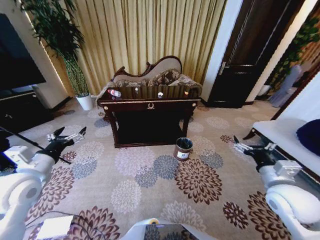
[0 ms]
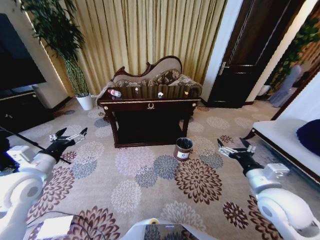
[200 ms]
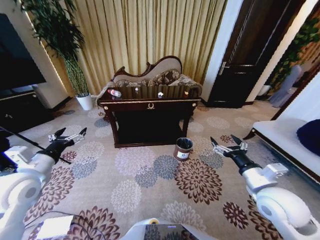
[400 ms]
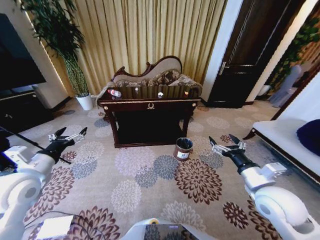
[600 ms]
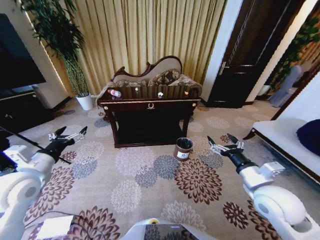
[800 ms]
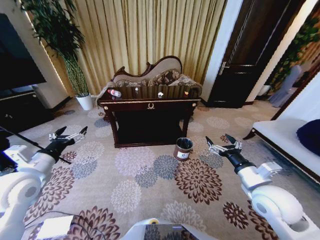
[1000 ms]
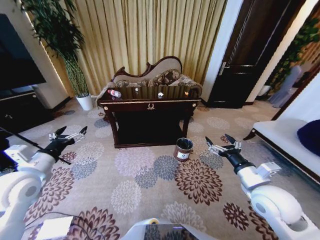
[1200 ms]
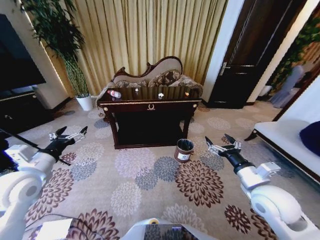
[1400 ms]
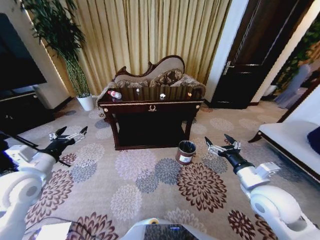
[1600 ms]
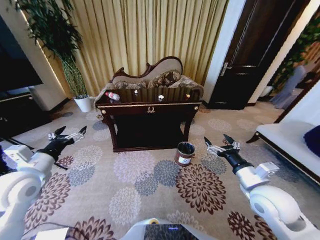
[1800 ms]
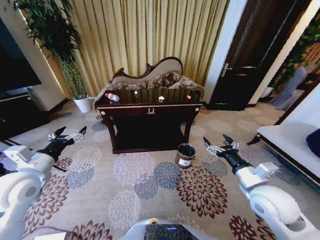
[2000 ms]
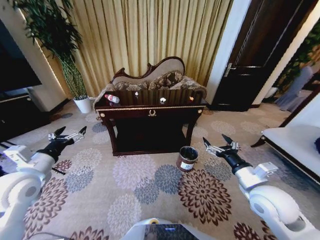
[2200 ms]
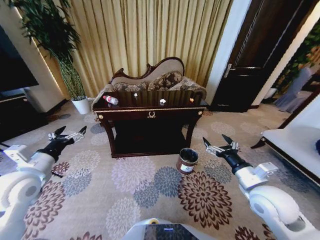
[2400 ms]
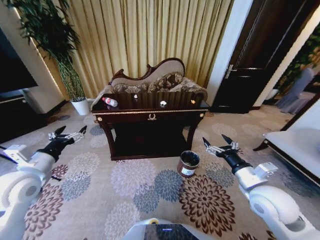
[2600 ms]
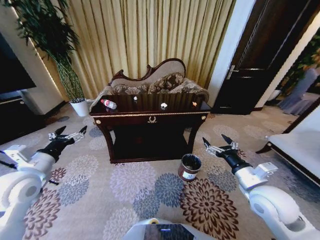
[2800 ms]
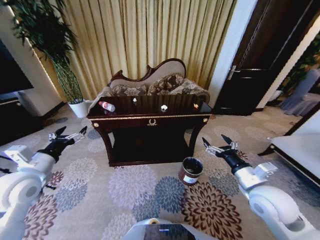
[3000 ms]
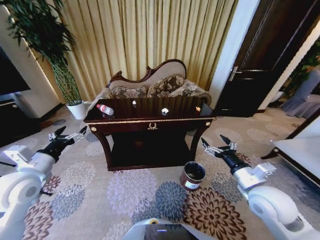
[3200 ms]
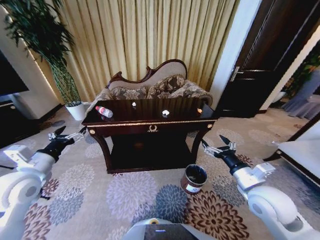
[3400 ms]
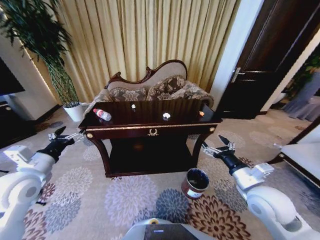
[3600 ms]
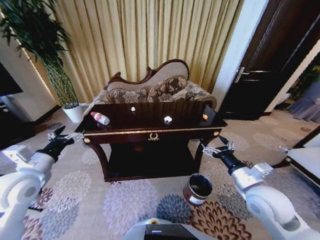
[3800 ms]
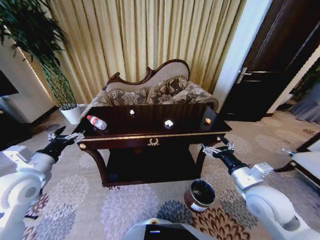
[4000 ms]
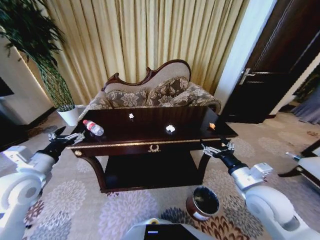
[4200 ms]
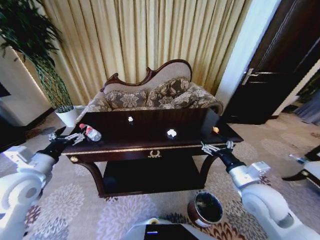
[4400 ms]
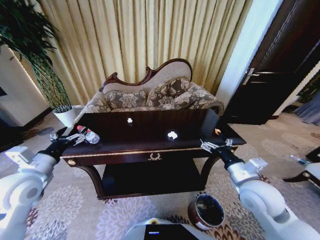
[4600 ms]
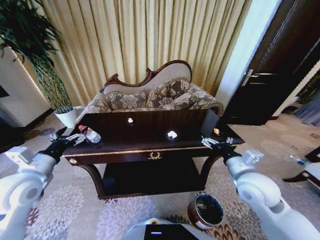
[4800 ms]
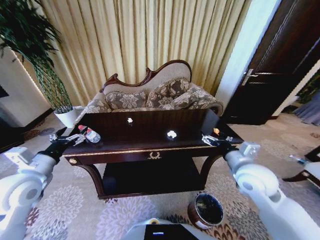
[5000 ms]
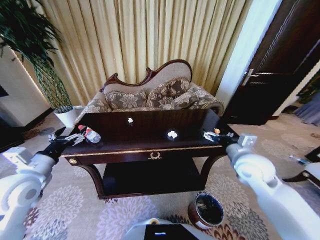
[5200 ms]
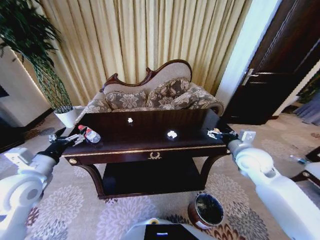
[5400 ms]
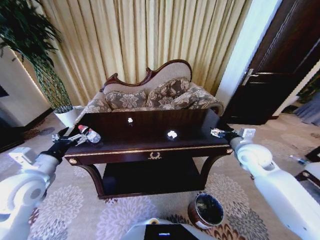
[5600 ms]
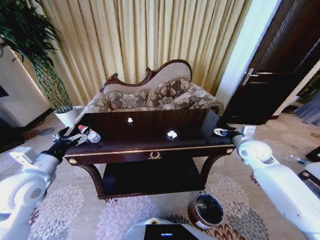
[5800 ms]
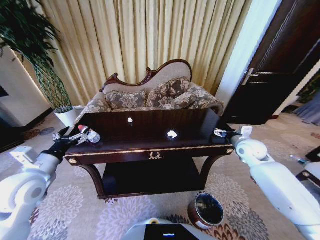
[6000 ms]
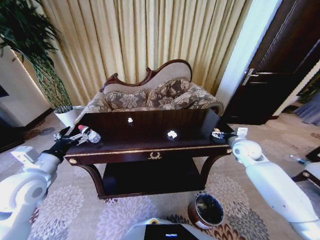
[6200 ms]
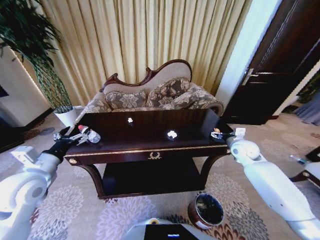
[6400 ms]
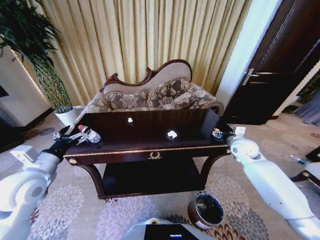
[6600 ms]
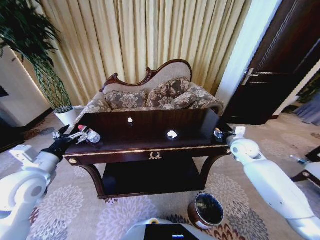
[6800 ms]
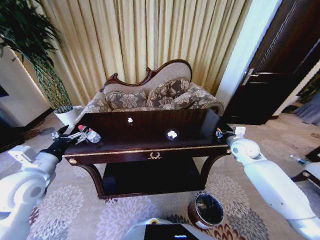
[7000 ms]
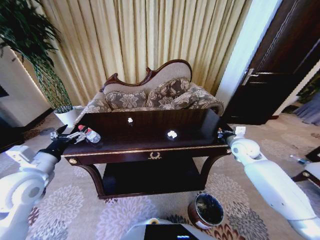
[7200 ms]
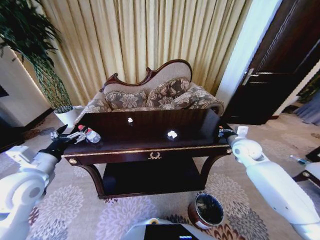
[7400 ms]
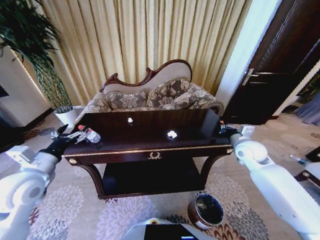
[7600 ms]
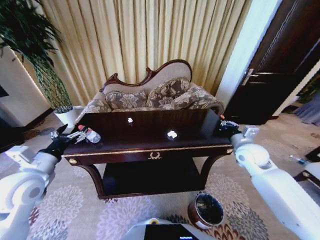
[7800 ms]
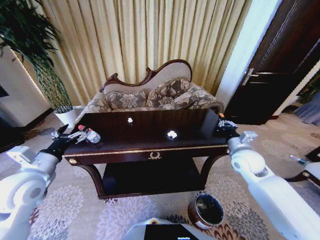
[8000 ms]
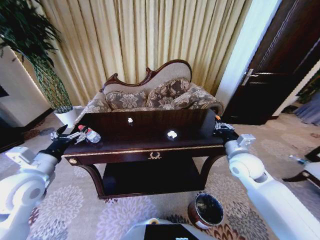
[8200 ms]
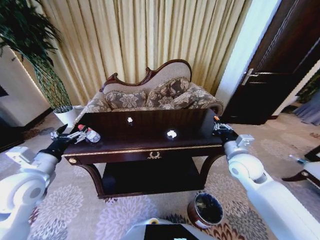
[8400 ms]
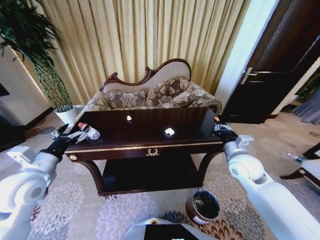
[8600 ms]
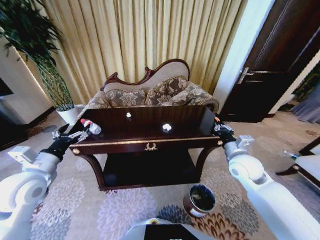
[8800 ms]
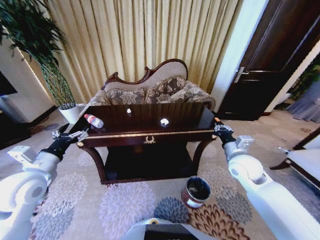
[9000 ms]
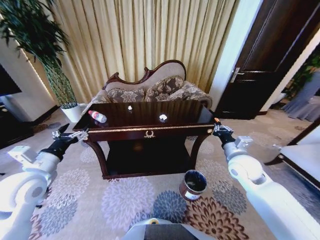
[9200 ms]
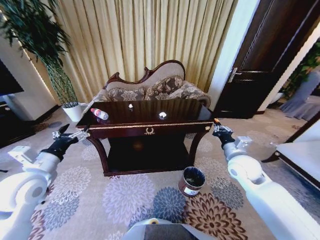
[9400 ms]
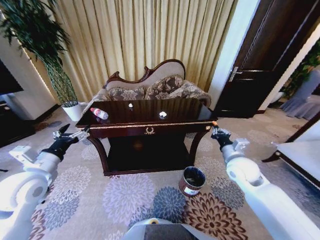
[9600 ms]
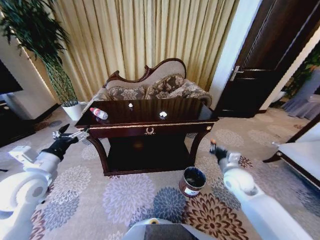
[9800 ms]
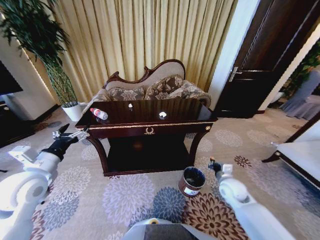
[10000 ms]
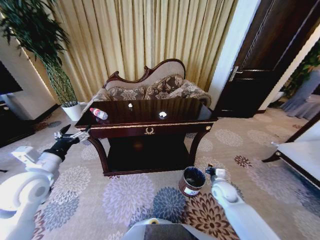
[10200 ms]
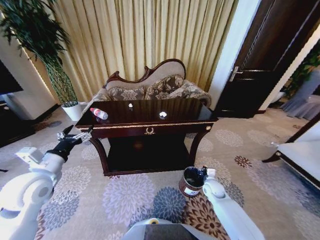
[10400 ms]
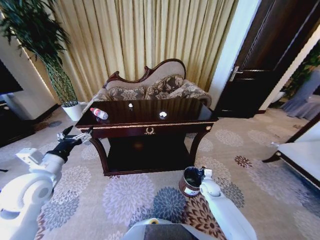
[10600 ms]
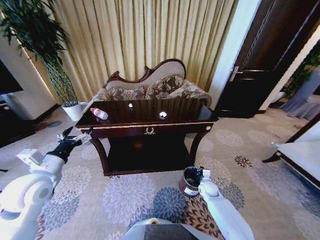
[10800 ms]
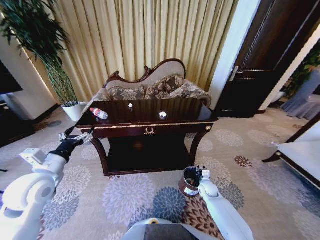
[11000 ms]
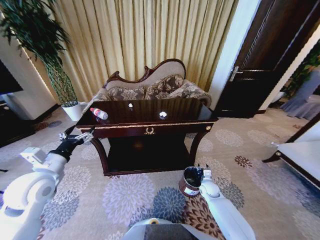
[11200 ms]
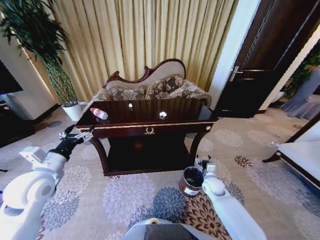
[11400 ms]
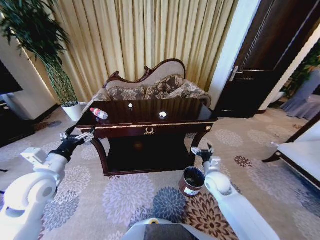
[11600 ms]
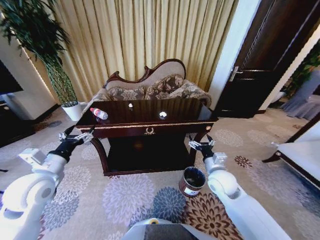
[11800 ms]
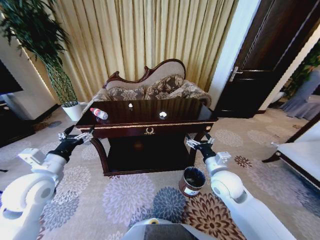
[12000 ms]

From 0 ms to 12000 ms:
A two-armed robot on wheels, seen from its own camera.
Task of the whole recording: Move to the front of the table and place the trash on the table into the trash bin.
From 4400 ms to 6000 ms: The right gripper is displaced forward and to the right by approximately 20 cm.
From 6000 ms to 7600 ms: The right gripper closes its fingers.
From 7600 ms to 9000 ms: The right gripper travels backward and to the left by roughly 10 cm.
From 9000 ms to 10400 ms: The right gripper is displaced downward by about 25 cm.
From 10400 ms to 12000 ms: The right gripper heads upward, covering approximately 20 cm, and opens.

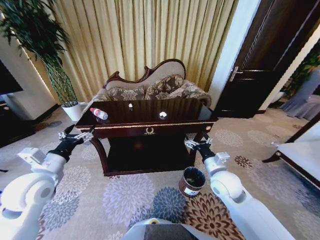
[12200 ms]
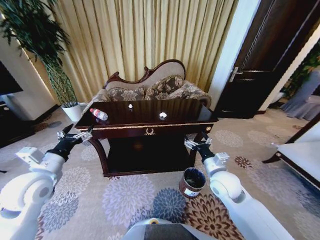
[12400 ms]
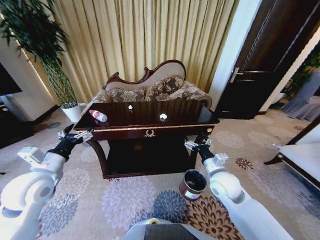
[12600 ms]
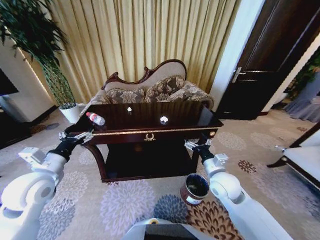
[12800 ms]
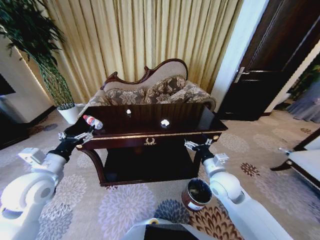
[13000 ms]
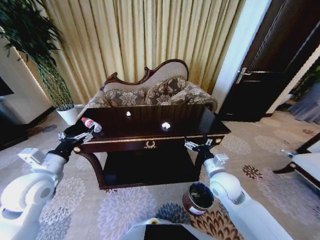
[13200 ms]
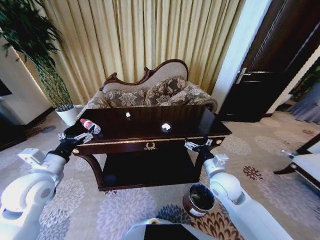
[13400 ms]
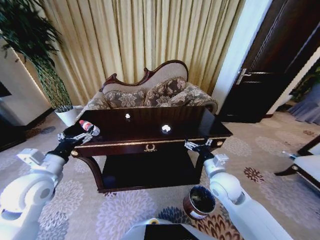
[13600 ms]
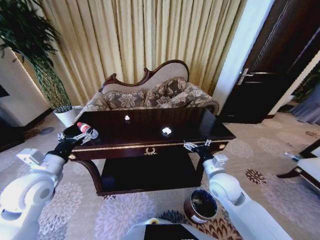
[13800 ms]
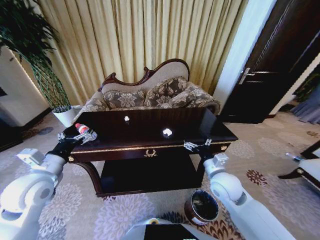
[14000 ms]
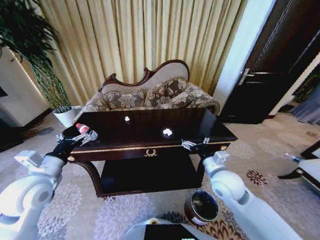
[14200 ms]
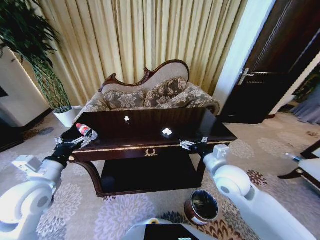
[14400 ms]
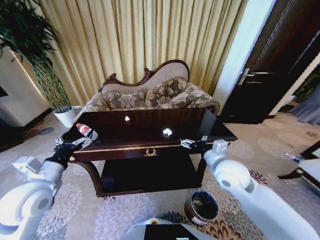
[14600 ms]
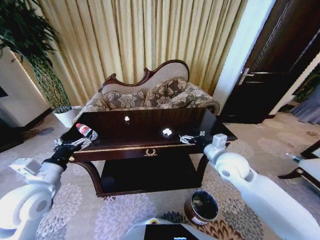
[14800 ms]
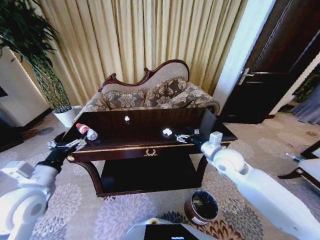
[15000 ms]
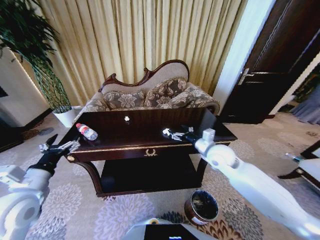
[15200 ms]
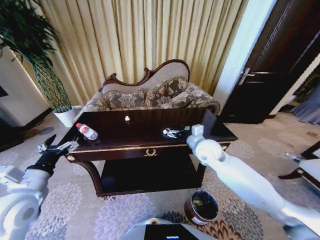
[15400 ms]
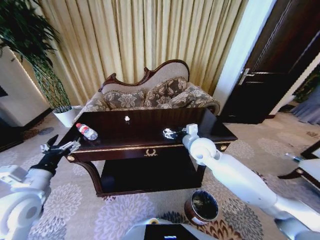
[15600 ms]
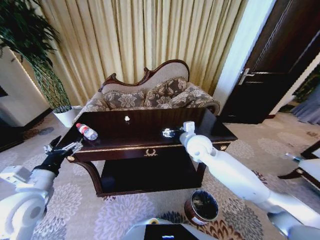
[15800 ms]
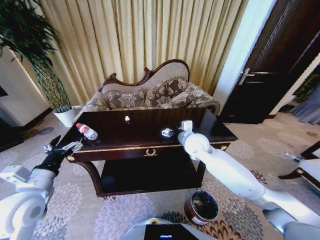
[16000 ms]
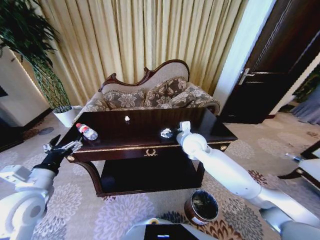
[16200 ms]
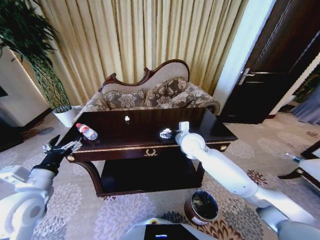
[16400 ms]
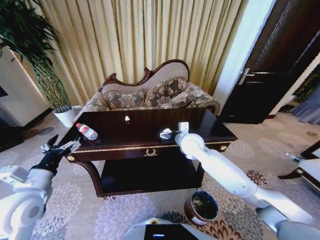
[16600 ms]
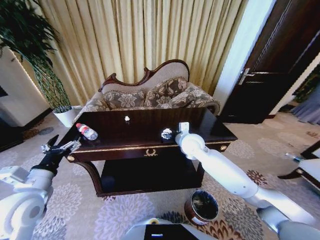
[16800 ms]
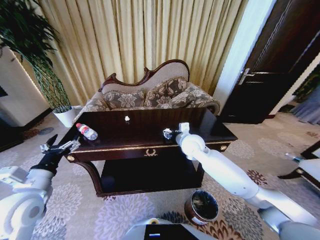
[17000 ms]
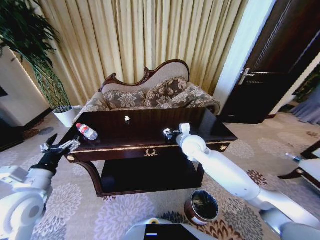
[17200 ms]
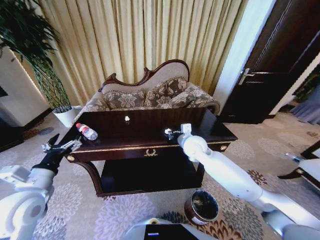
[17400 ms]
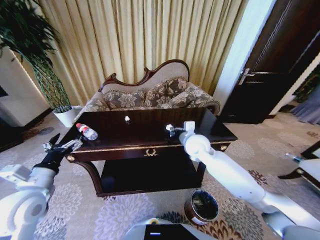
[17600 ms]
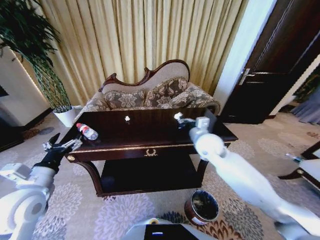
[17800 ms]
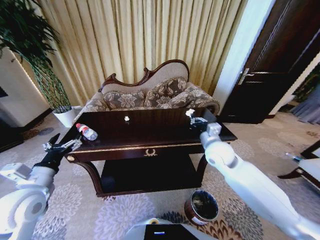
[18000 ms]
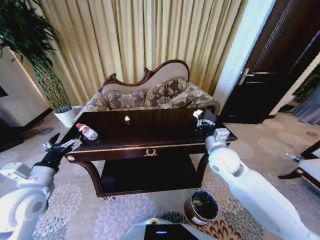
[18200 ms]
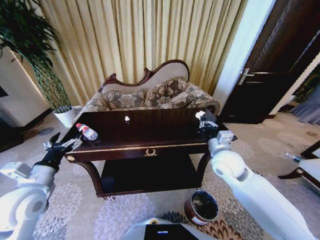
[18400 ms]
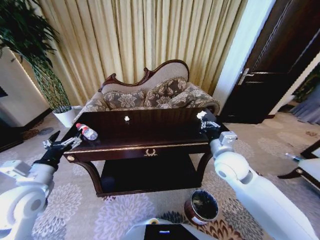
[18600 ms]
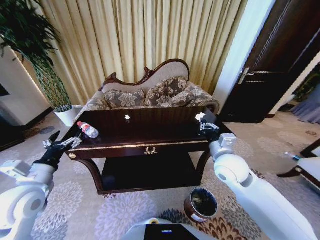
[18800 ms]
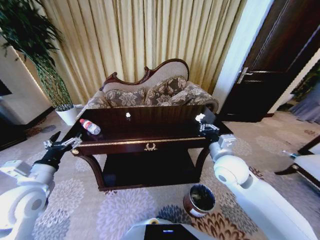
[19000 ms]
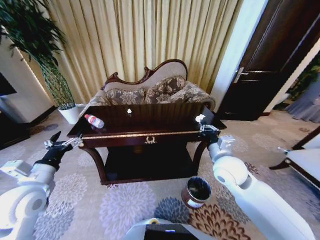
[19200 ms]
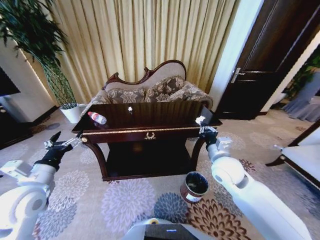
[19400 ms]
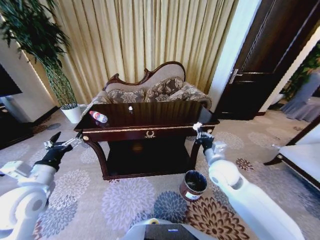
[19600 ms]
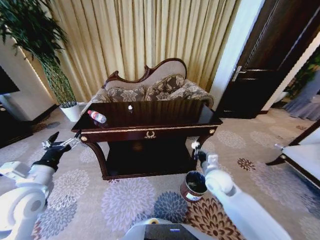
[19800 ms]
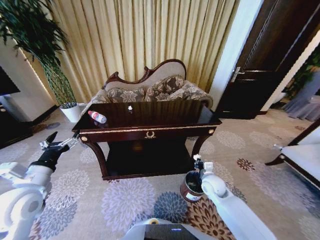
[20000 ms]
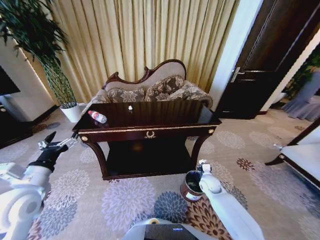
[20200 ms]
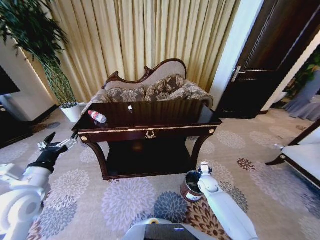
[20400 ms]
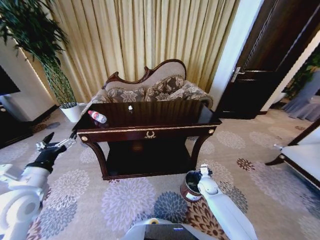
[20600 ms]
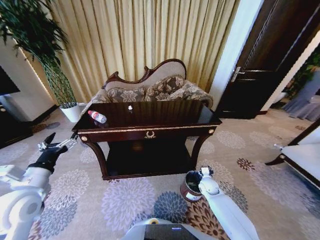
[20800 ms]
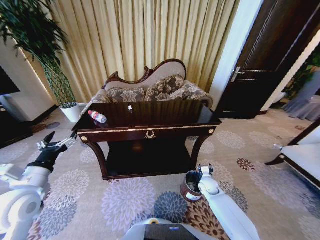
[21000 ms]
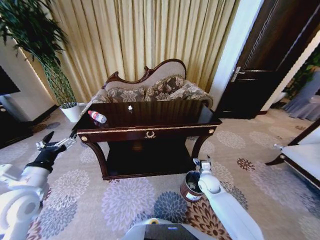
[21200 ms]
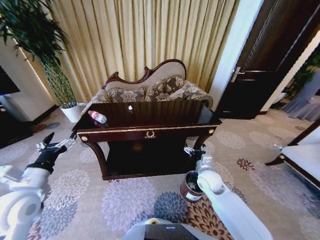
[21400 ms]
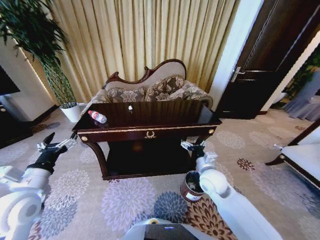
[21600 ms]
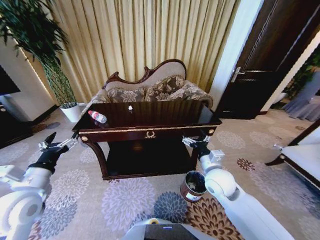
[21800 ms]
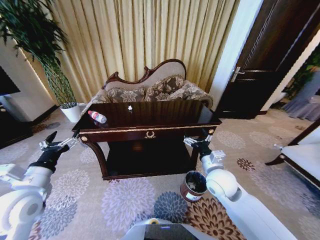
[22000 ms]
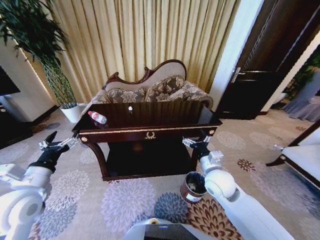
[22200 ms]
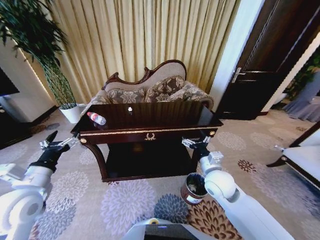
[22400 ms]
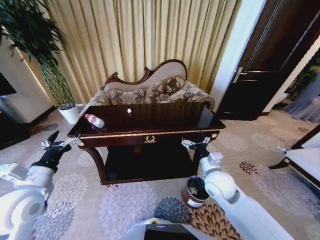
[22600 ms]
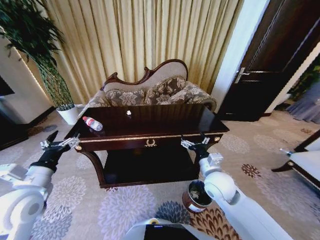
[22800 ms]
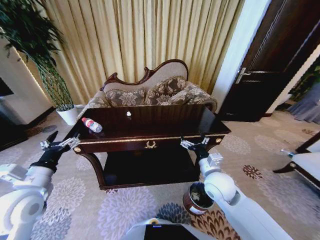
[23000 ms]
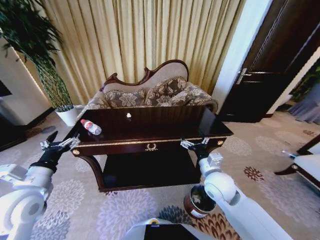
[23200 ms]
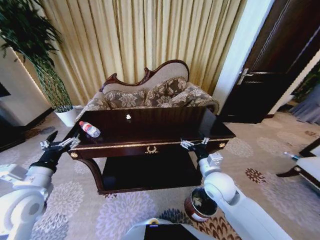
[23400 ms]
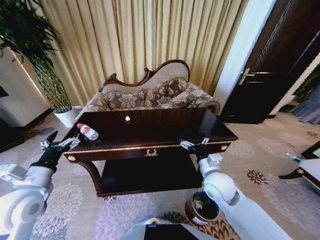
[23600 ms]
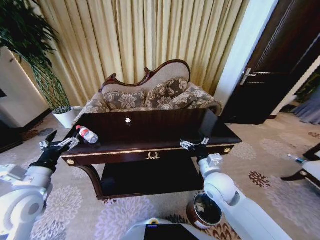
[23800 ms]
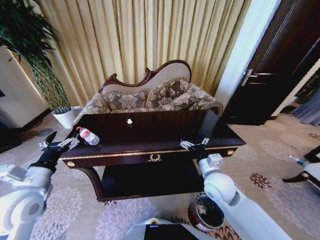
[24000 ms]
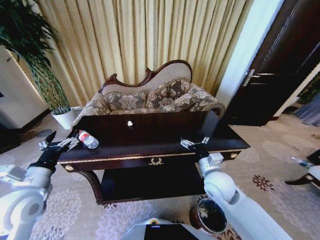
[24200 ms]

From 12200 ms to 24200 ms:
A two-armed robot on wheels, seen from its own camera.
Task of the whole recording: Move to the front of the table and place the trash on the table into the trash bin.
From 13800 ms to 15200 ms: The right gripper heads forward and upward, covering some 10 cm, while the left gripper travels backward by about 5 cm.
From 15200 ms to 16600 ms: The right gripper moves to the left, roughly 10 cm.
From 16600 ms to 18200 ms: The right gripper is displaced to the right and backward by roughly 10 cm, and closes its fingers.
From 18200 ms to 19800 ms: The right gripper is displaced downward by some 10 cm.
From 19800 ms to 21200 ms: The right gripper is displaced downward by about 15 cm, and opens up.
From 21200 ms to 22600 ms: The right gripper is displaced upward by some 20 cm.
